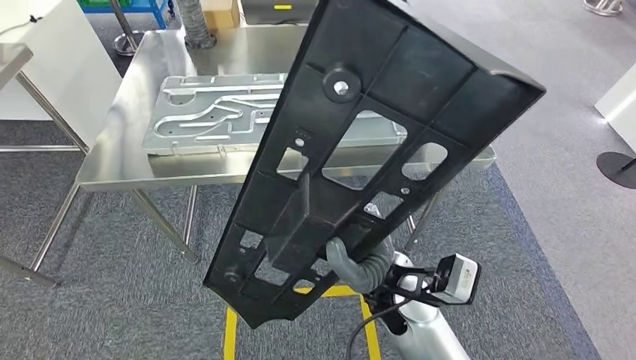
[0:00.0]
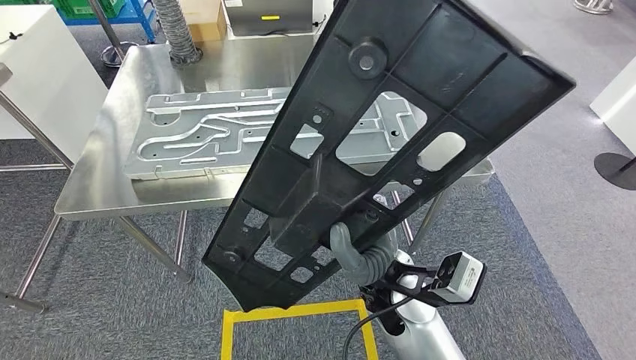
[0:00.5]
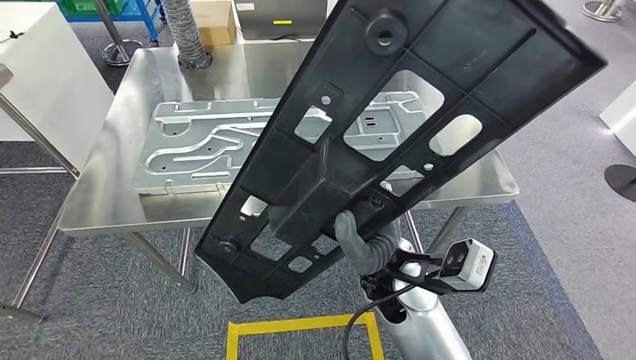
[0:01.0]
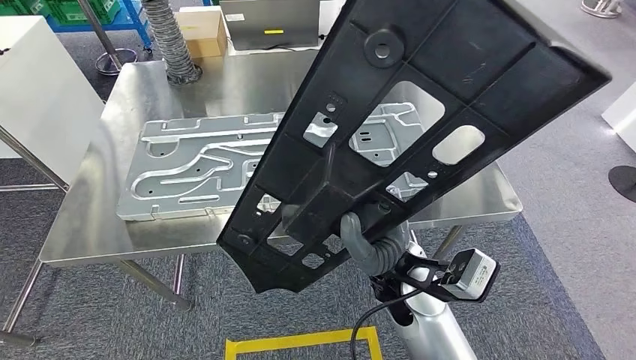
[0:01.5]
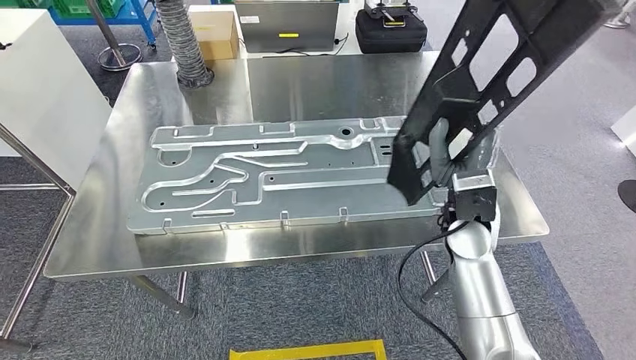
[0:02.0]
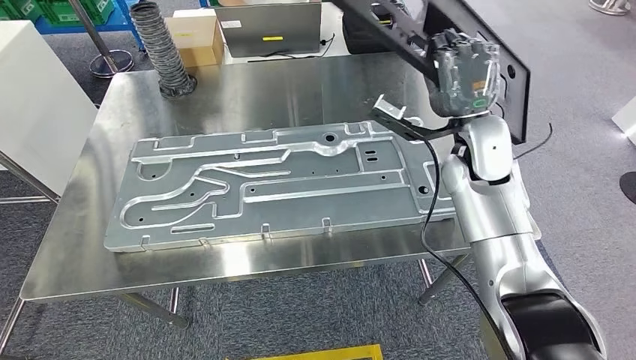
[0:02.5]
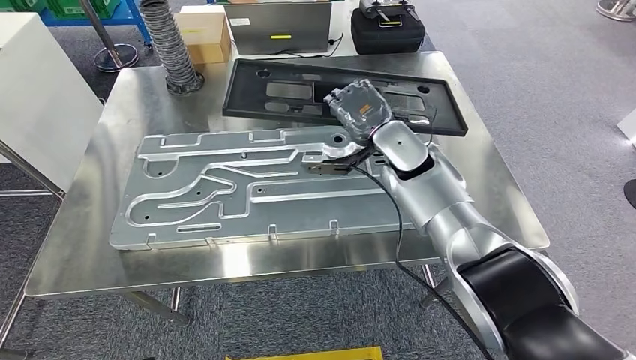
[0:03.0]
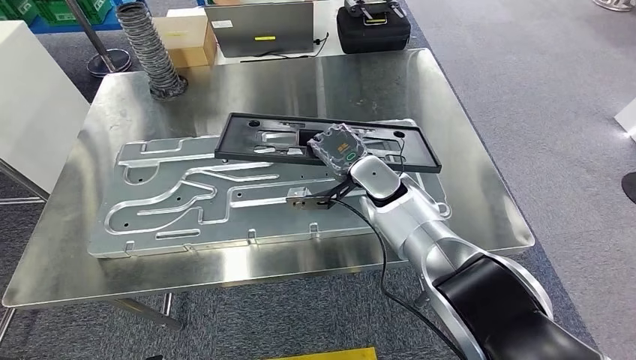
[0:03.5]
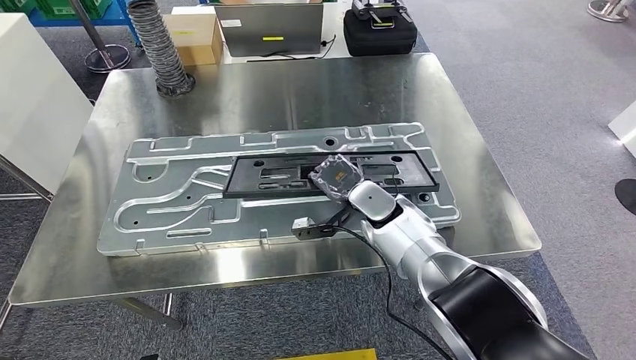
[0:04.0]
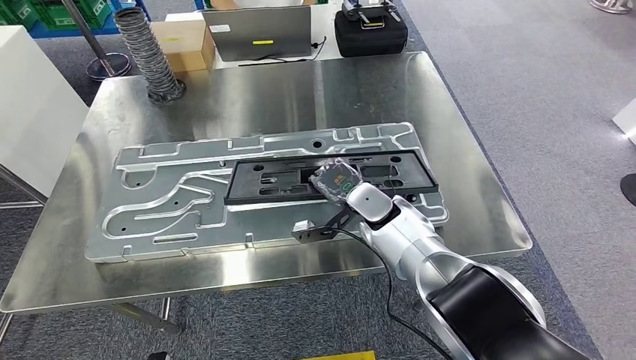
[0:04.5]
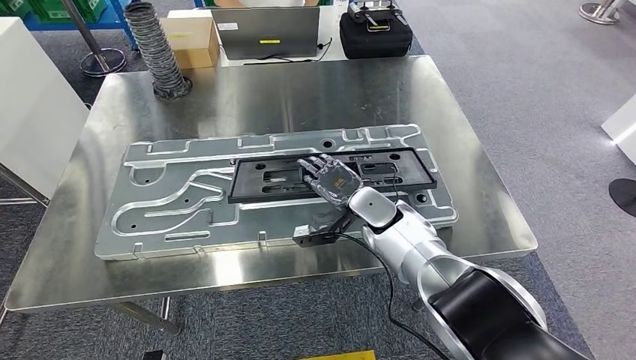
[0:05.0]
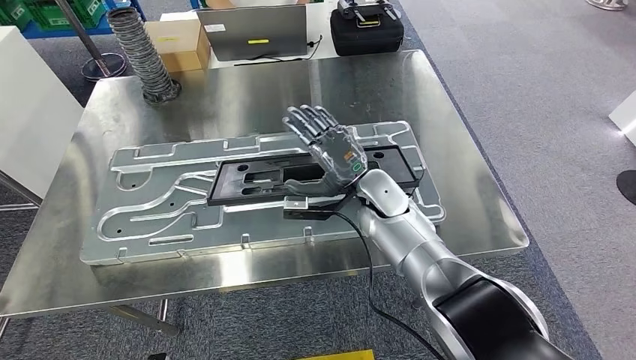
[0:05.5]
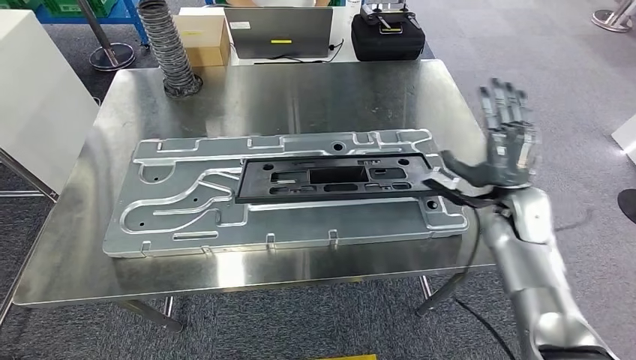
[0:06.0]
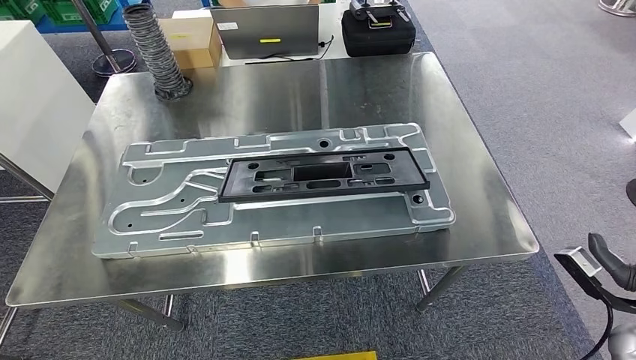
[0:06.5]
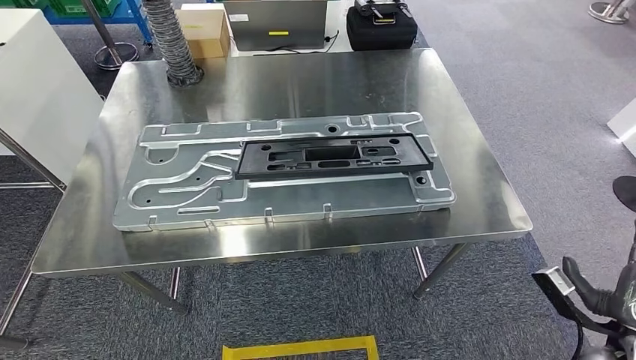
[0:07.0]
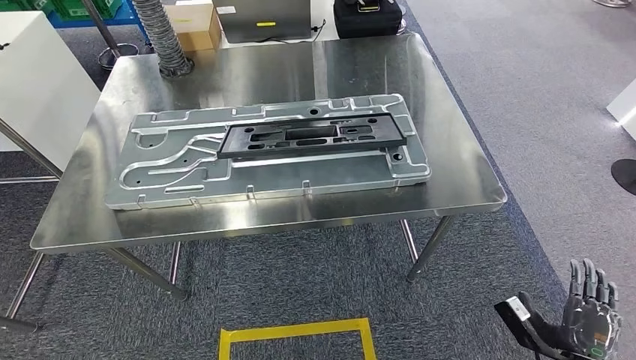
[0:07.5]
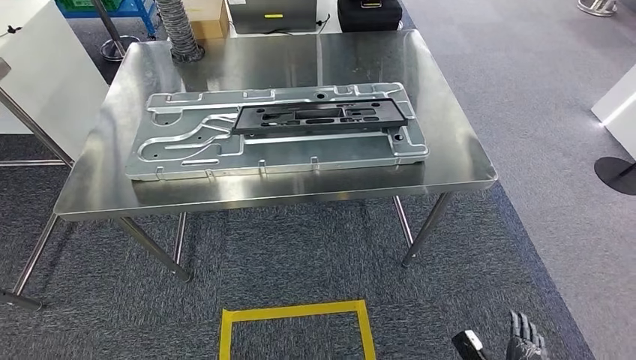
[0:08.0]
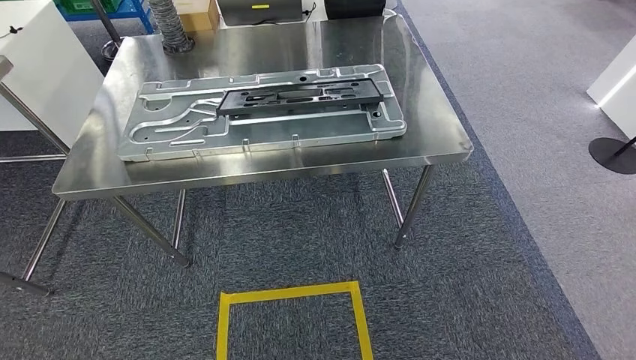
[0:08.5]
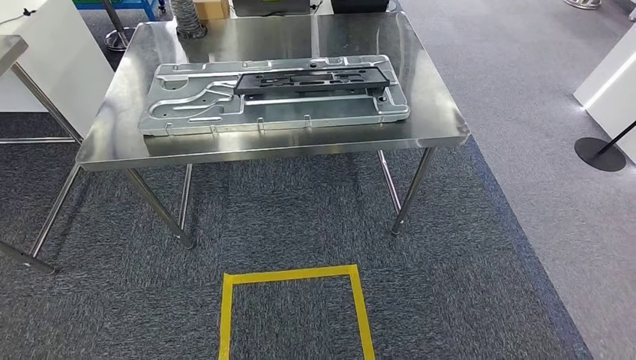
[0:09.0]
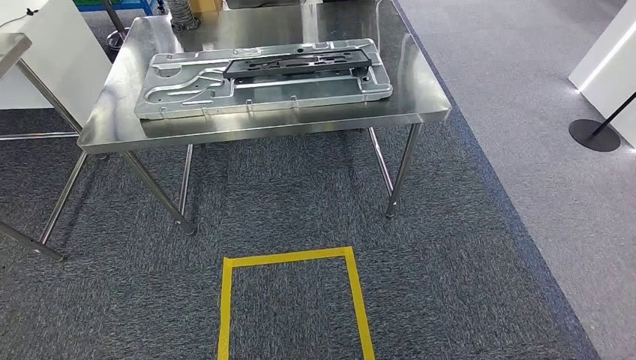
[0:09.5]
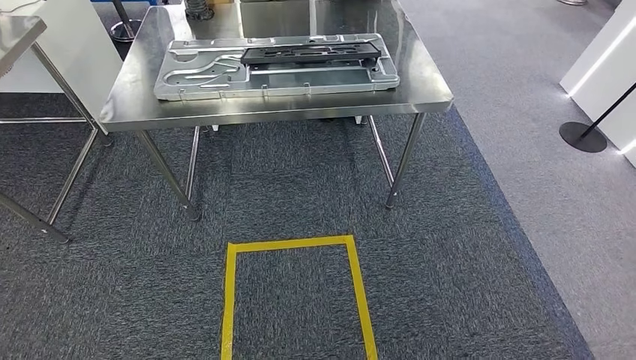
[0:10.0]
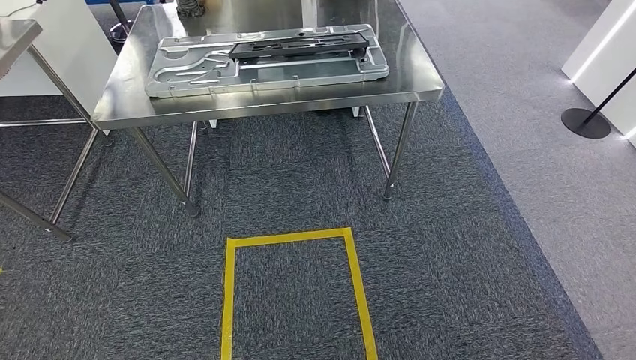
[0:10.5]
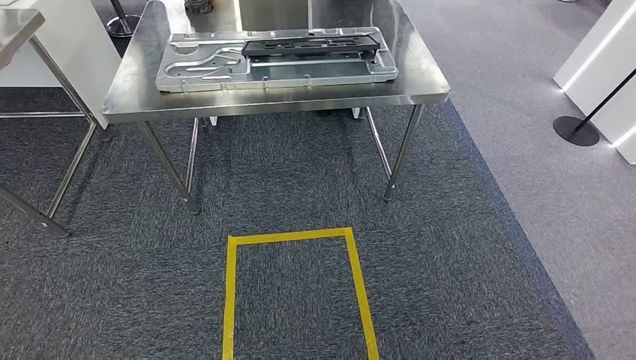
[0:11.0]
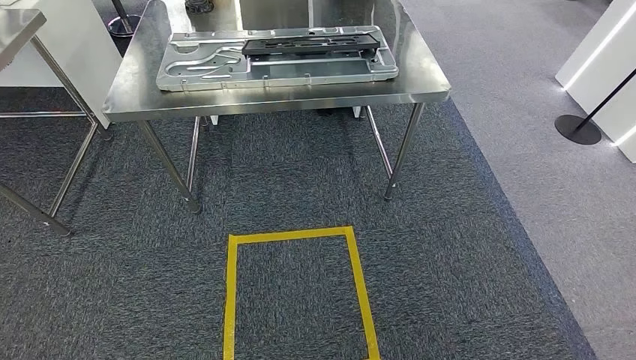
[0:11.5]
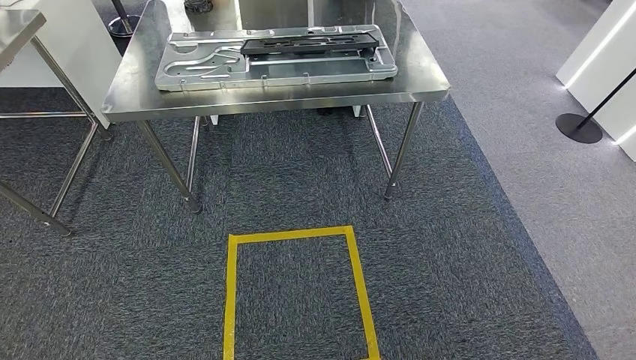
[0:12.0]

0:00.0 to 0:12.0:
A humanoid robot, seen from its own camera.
Step, 0:01.5 to 0:06.0: Insert the large material into the corresponding hole on the workbench.
Step, 0:07.5 to 0:12.0: Move to the initial position of the shelf.
